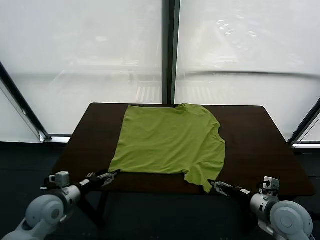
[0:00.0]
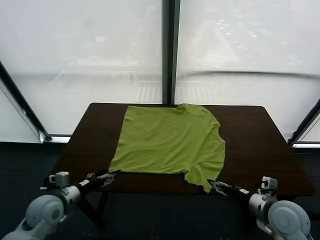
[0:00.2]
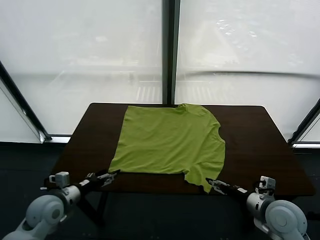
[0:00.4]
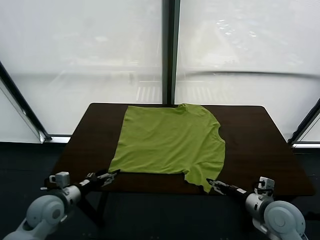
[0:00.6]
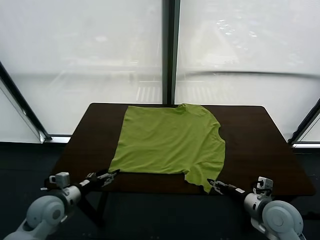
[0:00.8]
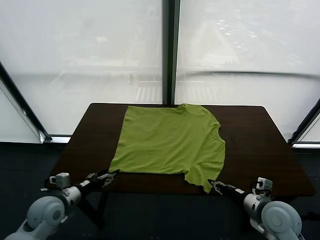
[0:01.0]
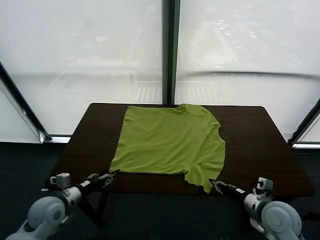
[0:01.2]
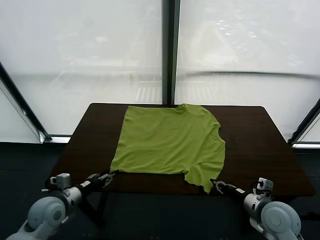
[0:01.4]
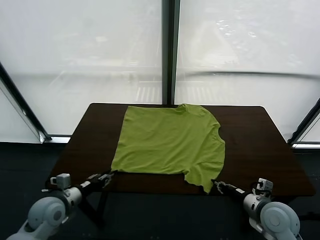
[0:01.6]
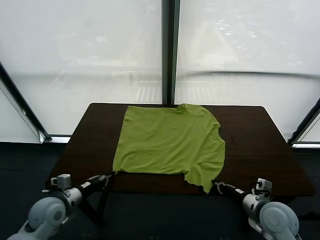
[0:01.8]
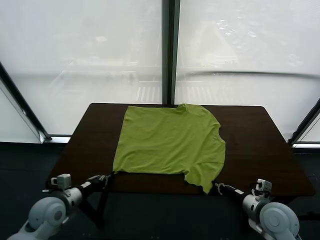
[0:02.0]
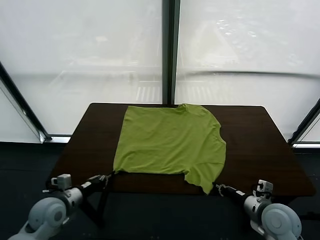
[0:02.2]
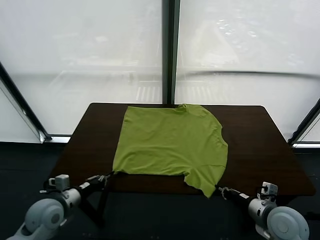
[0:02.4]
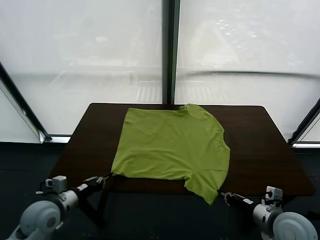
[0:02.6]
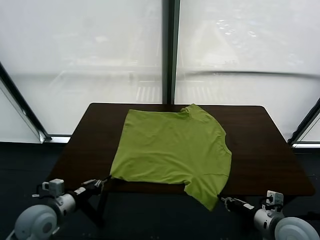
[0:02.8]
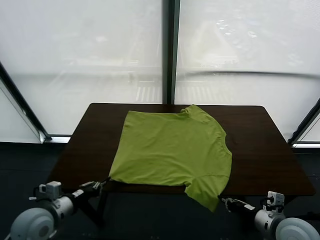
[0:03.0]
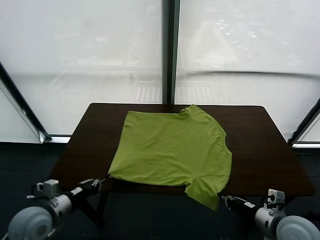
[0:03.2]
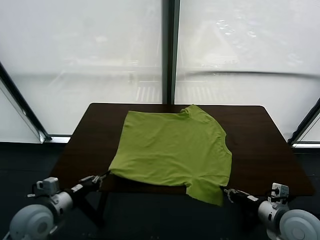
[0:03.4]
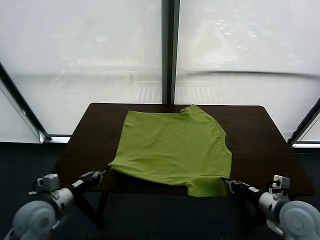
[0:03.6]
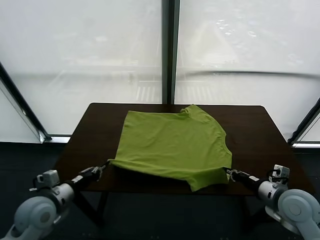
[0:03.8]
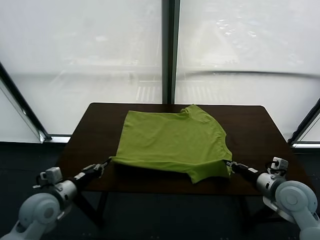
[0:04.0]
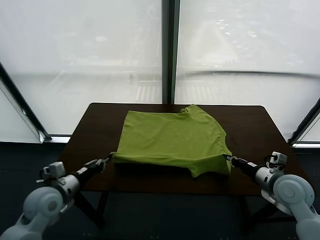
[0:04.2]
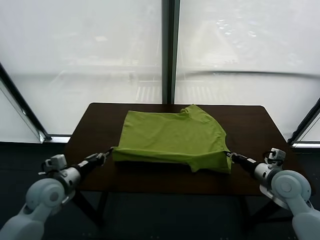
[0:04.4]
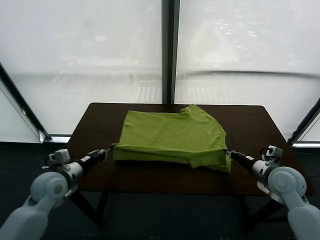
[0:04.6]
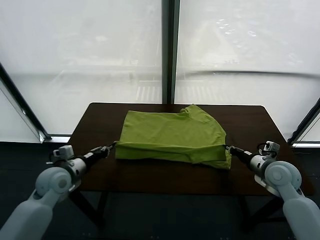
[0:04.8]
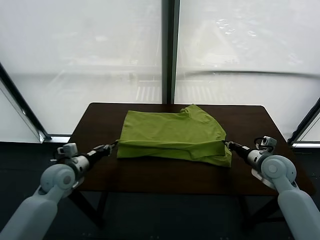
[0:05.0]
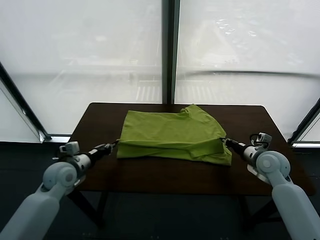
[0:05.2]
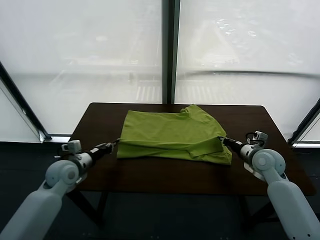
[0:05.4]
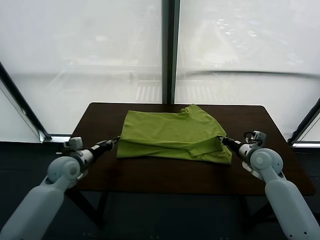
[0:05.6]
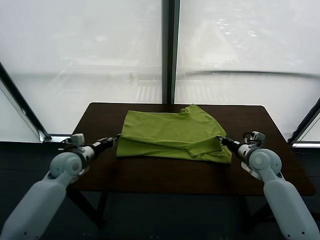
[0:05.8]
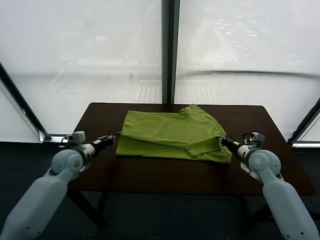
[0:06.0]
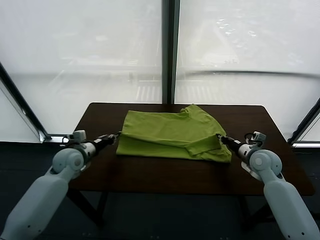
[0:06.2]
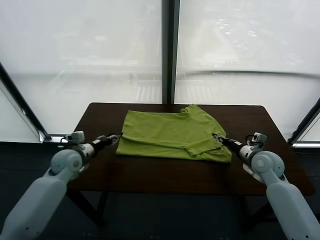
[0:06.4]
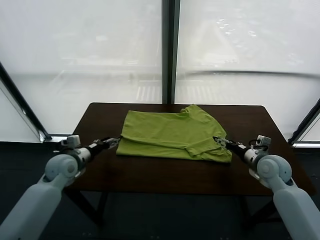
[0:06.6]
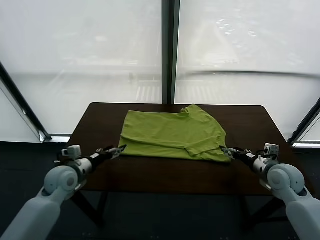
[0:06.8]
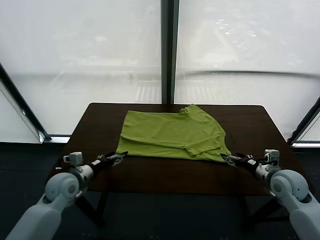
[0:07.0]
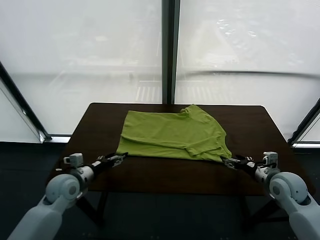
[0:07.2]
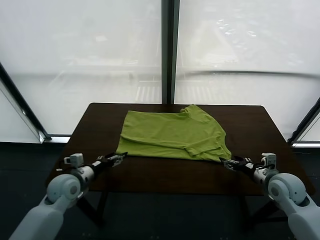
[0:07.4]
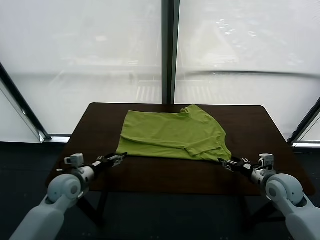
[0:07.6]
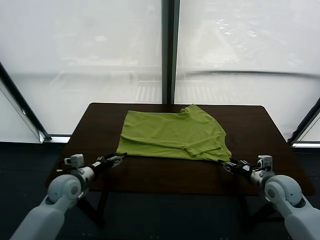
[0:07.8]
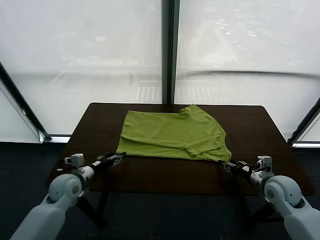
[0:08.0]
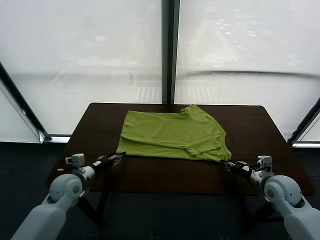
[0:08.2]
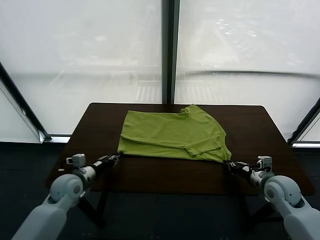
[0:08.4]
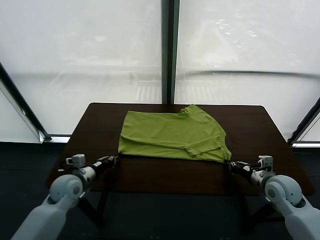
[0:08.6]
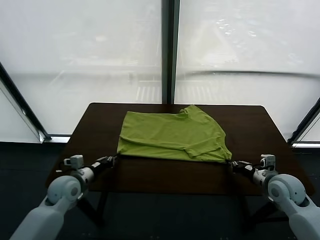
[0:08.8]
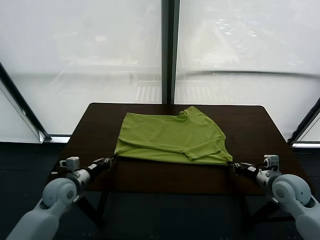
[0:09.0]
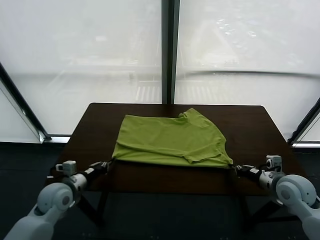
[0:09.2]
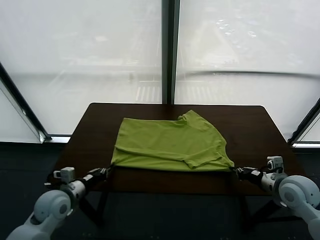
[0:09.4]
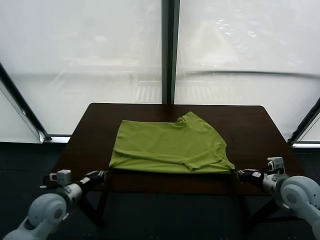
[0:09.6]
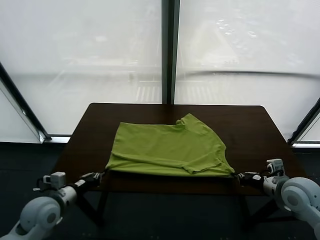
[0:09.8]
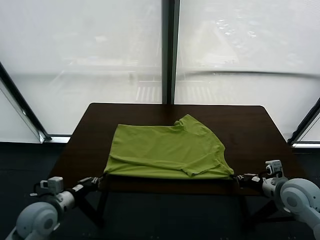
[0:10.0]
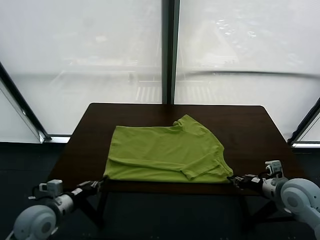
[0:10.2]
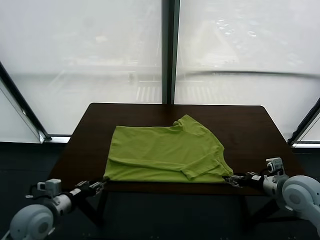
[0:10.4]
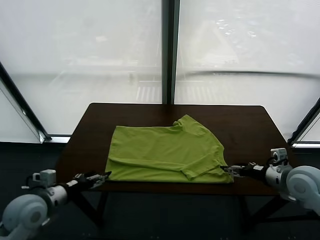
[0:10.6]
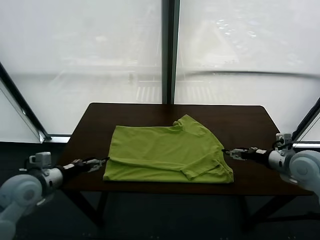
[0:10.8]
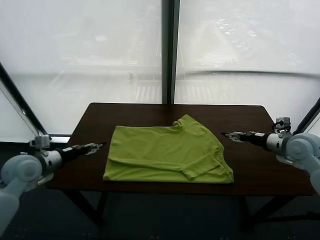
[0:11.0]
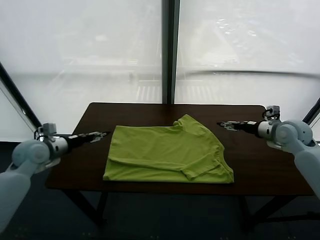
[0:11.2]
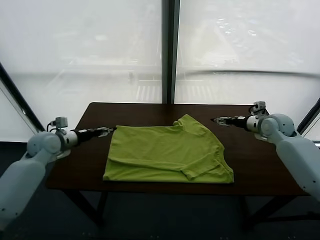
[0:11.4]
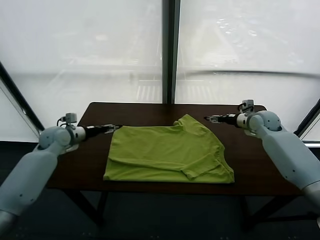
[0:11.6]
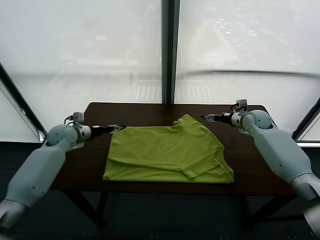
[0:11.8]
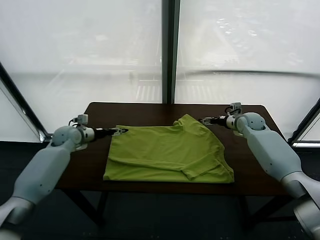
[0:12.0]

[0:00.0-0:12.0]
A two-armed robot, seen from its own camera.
Task of the whole recording: fold and organize the clothes.
Step, 0.0 to 2.2 s: use both grippers simultaneously to clamp the lower edge of the clothing fabric.
Step, 2.4 to 6.4 s: use both grippers to drag the lower edge of the fabric forward and fold it over the upper edge.
Step, 6.6 to 10.4 s: Drag the clothes downward with both gripper.
1.6 to 3.0 s: Both grippers travel together upward, roughly 5 cm.
3.0 to 4.4 s: Both grippers move forward, approximately 10 cm.
4.4 to 6.0 s: The left gripper shifts roughly 10 cm forward, while the right gripper shifts by some 5 cm, and opens up.
6.0 to 7.6 s: Both grippers travel together backward, roughly 10 cm. The left gripper opens its fingers.
7.6 to 9.0 s: The left gripper closes up; the right gripper moves roughly 5 cm, and closes up.
9.0 to 10.4 s: The right gripper moves upward, about 5 cm, and opens up, while the left gripper shifts approximately 10 cm backward and upward, and opens.
10.4 to 12.0 s: Both grippers travel together forward, some 25 cm.

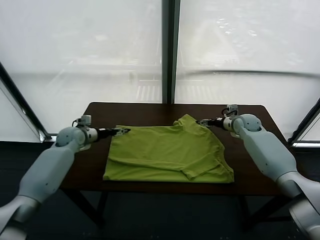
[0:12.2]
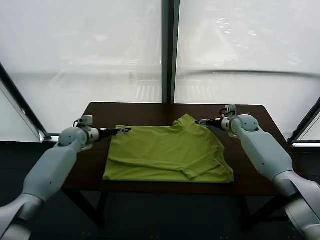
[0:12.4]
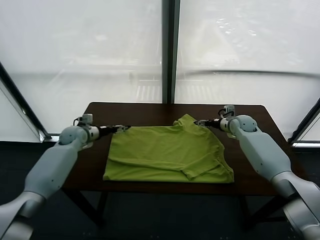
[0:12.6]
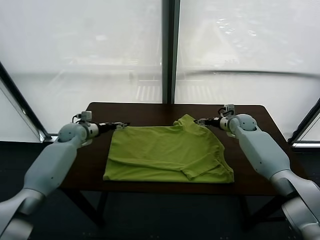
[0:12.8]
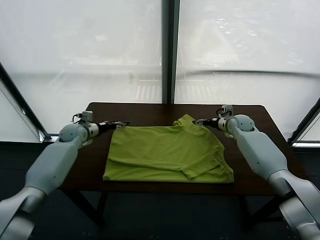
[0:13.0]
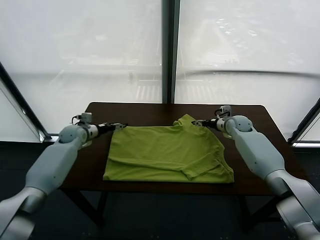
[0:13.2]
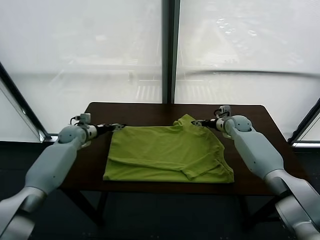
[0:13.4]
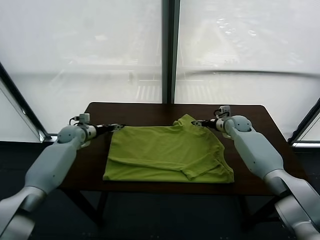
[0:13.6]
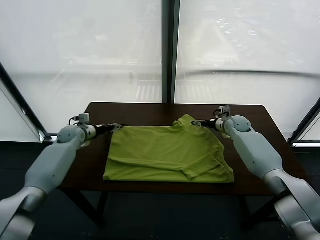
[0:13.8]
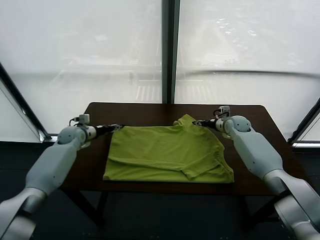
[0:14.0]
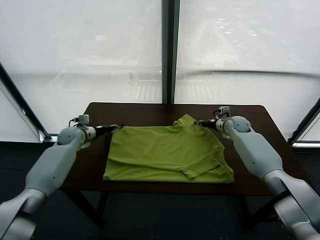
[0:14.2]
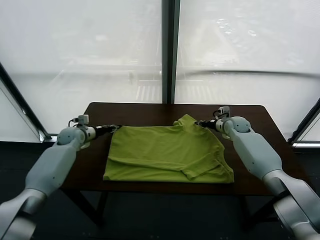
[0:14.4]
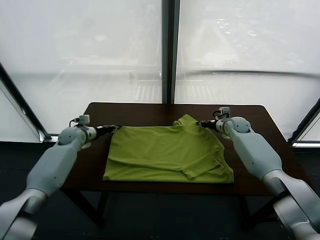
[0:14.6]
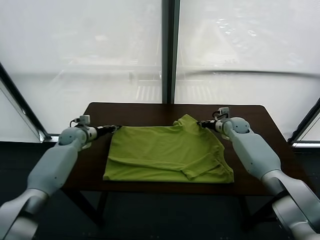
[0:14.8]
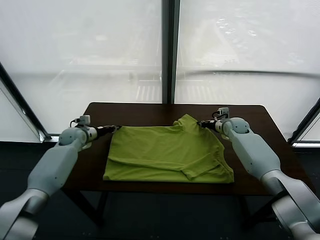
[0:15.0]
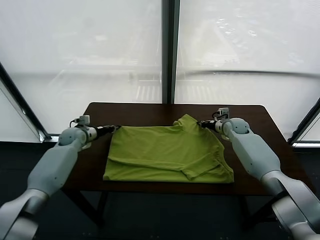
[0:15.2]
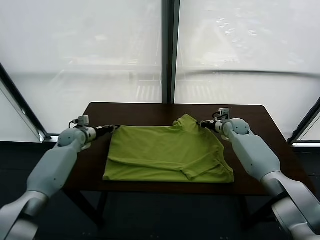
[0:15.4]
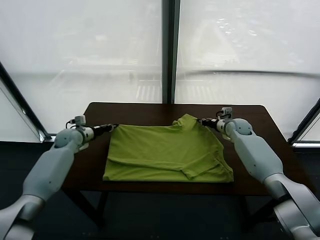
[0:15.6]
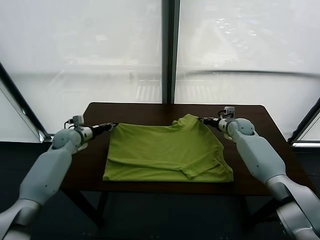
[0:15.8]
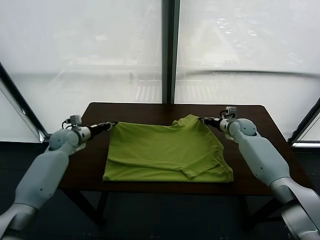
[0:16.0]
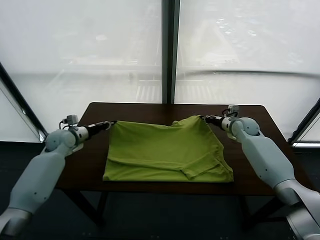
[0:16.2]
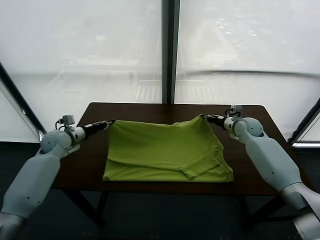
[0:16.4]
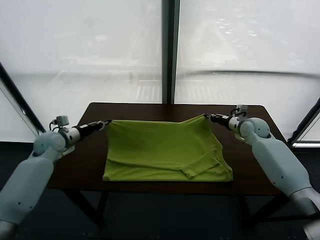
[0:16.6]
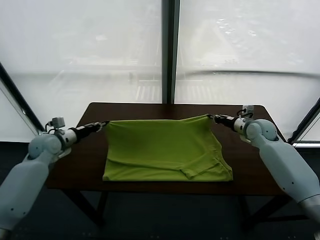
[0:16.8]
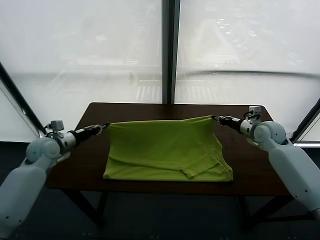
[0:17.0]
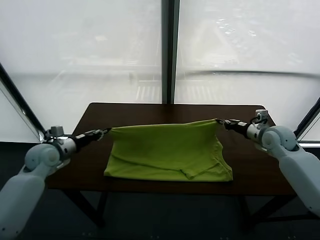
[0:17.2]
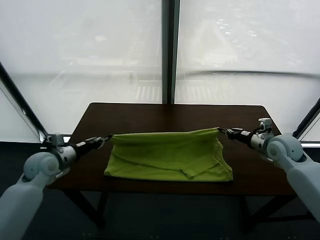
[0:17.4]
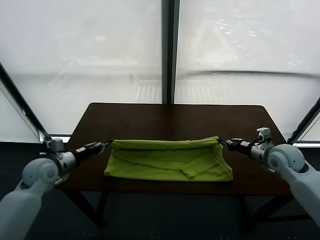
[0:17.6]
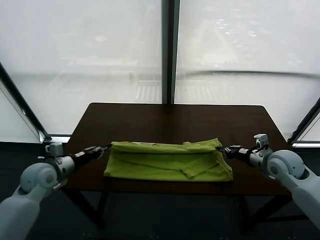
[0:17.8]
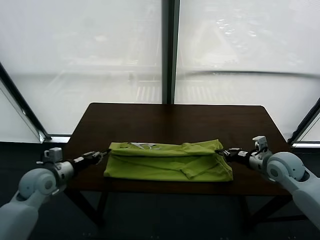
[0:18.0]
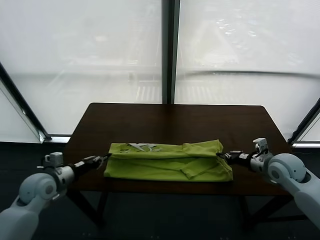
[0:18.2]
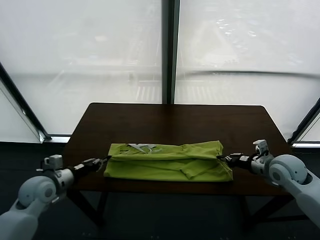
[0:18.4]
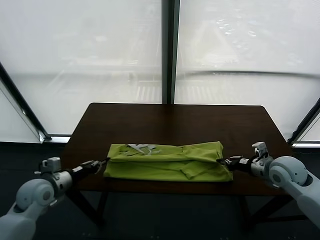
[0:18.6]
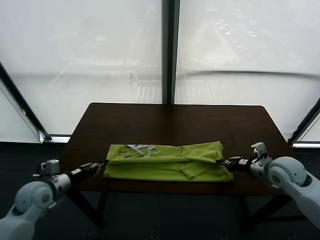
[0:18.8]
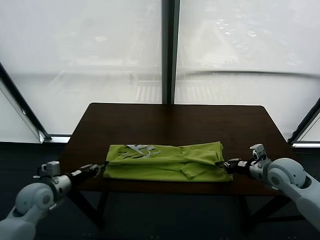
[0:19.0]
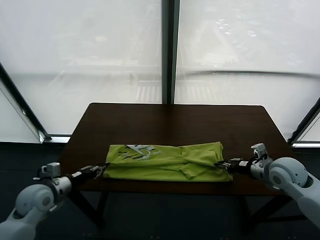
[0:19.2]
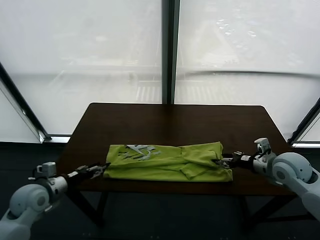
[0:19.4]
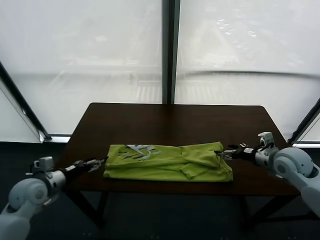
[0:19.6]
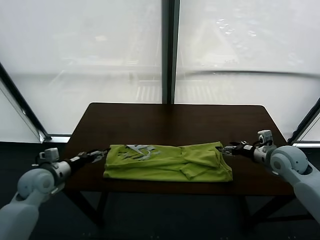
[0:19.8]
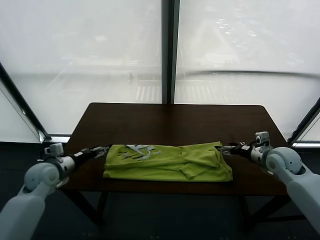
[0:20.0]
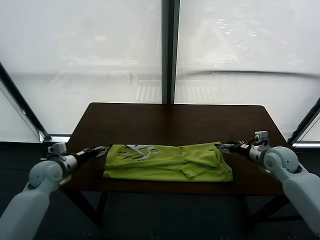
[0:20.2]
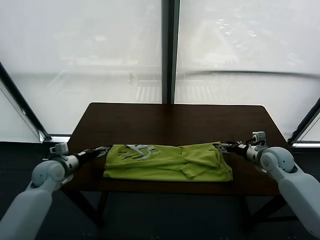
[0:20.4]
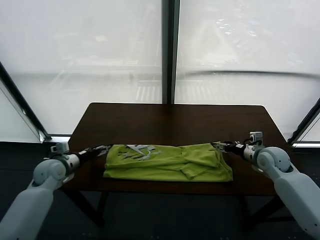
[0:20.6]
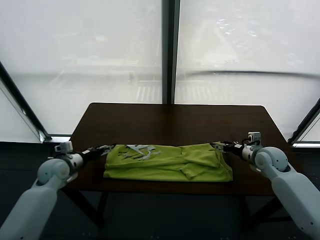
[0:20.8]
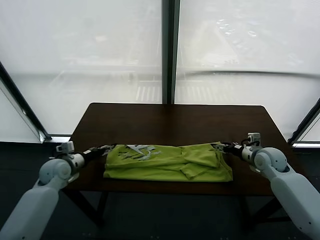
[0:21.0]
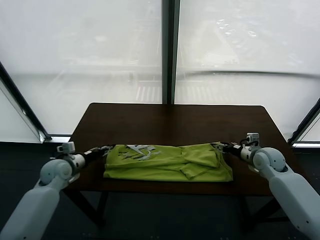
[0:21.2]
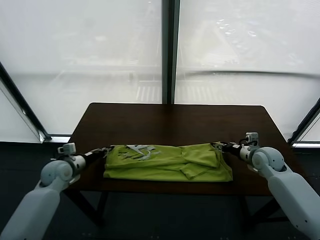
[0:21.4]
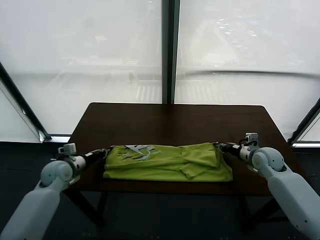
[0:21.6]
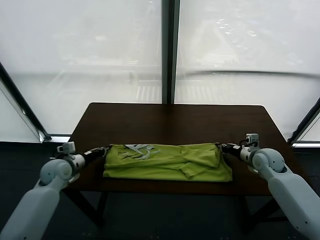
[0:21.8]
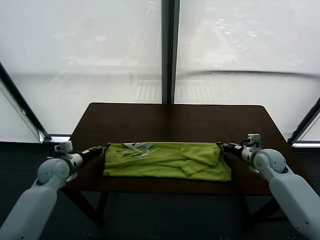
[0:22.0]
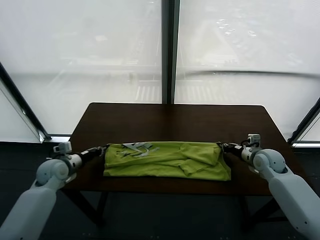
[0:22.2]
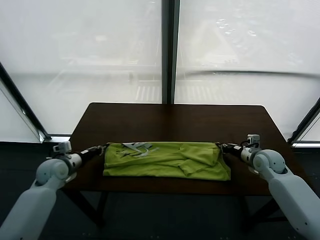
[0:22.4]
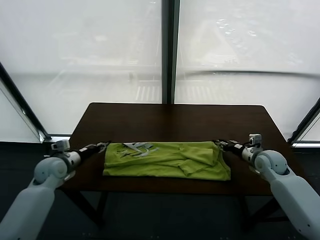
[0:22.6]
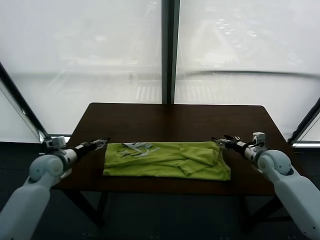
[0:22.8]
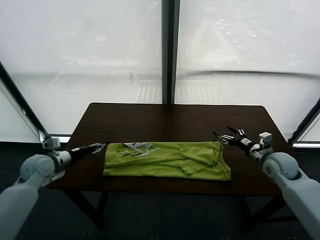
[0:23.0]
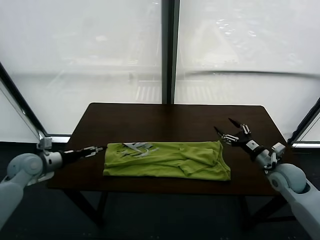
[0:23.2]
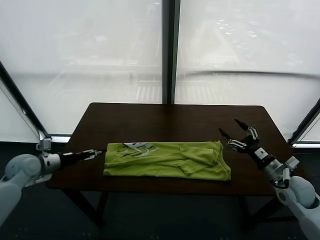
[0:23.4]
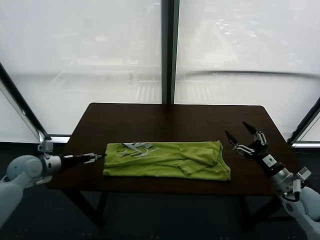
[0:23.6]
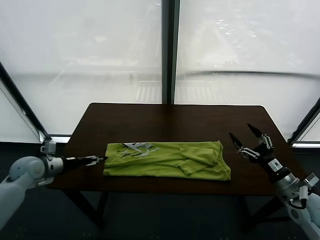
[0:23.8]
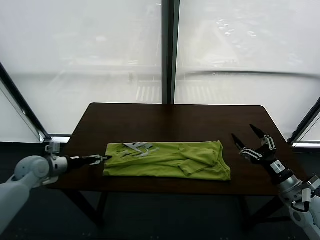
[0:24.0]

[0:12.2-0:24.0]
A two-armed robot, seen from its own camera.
Task of the whole recording: fold and organize the clothes.
Step, 12.2 to 15.4 s: use both grippers simultaneously to clamp the upper edge of the clothing fabric.
Step, 15.6 to 19.4 s: use both grippers to drag the upper edge of the fabric backward and fold it over the lower edge.
12.2 to 13.6 s: The grippers make only small movements.
13.6 to 15.2 s: The left gripper closes; the right gripper closes its fingers.
15.2 to 16.6 s: The right gripper heads backward, upward and to the right, covering roughly 15 cm. The left gripper is displaced backward and upward by some 10 cm.
16.6 to 18.2 s: Both grippers travel together backward, some 15 cm.
18.2 to 19.6 s: The left gripper opens up. Meanwhile the right gripper opens up.
19.6 to 21.0 s: The right gripper moves downward, some 5 cm; the left gripper goes approximately 5 cm forward.
21.0 to 22.6 s: The right gripper closes, then opens again; the left gripper closes and opens again.
22.6 to 24.0 s: The left gripper opens its fingers, while the right gripper is displaced backward by about 15 cm.
